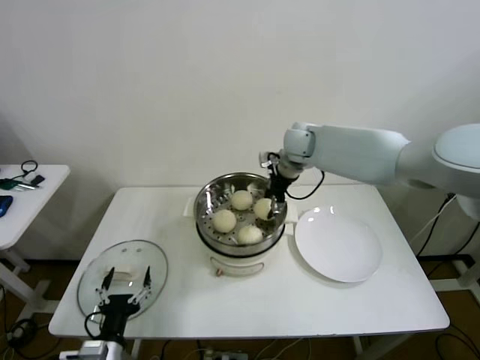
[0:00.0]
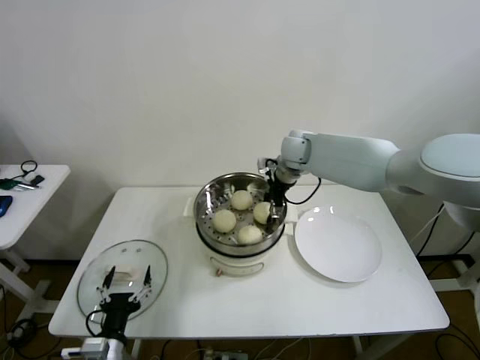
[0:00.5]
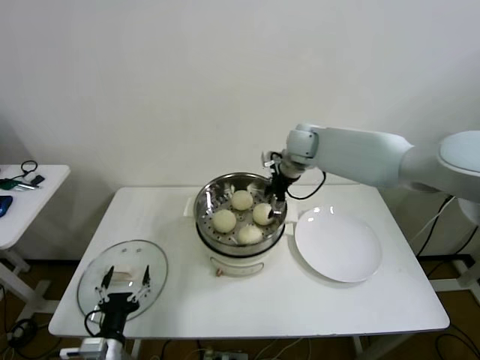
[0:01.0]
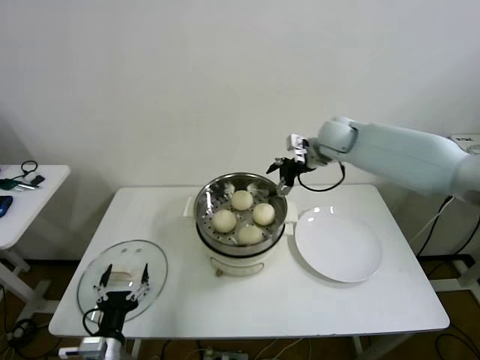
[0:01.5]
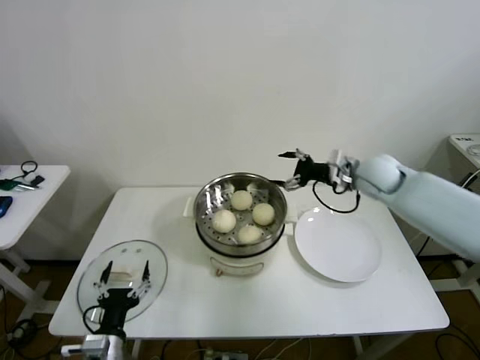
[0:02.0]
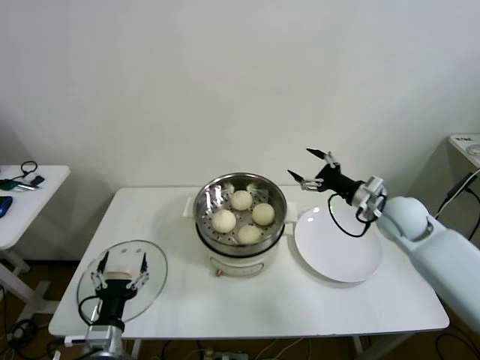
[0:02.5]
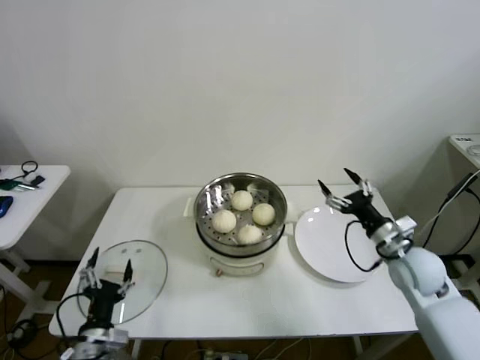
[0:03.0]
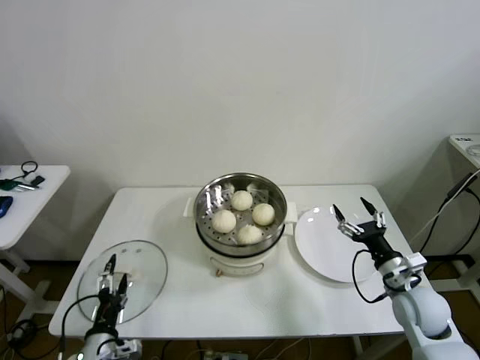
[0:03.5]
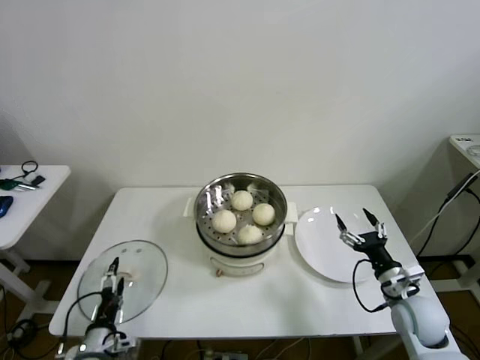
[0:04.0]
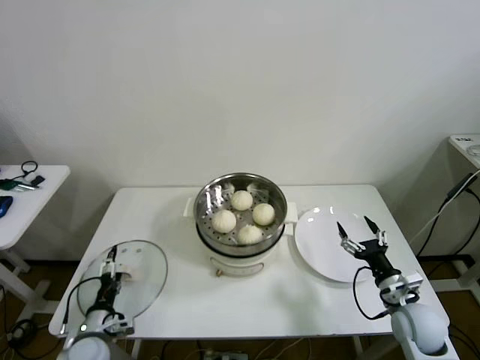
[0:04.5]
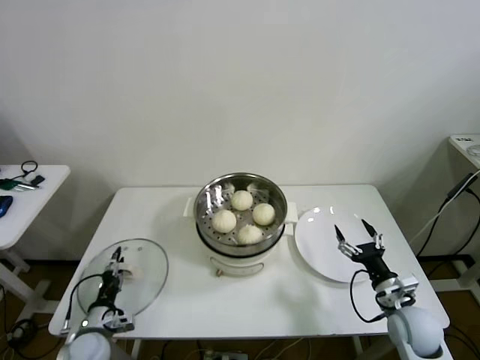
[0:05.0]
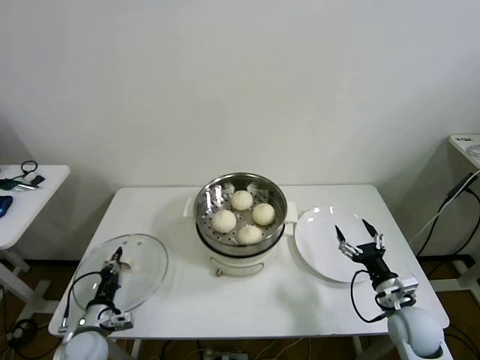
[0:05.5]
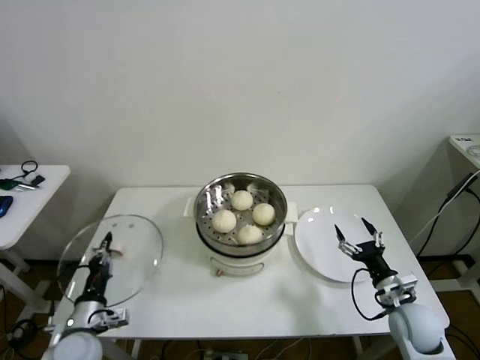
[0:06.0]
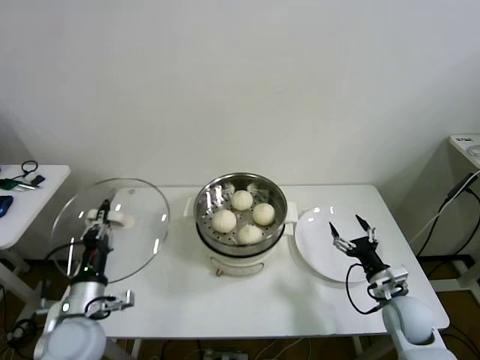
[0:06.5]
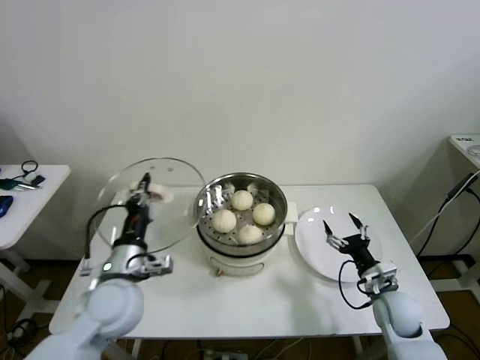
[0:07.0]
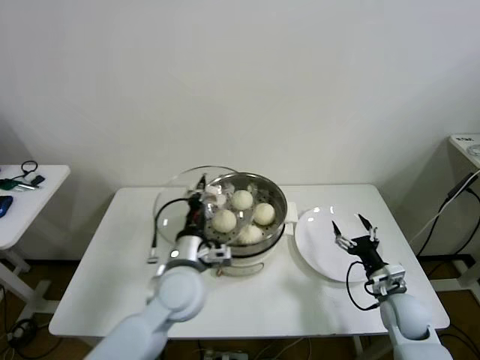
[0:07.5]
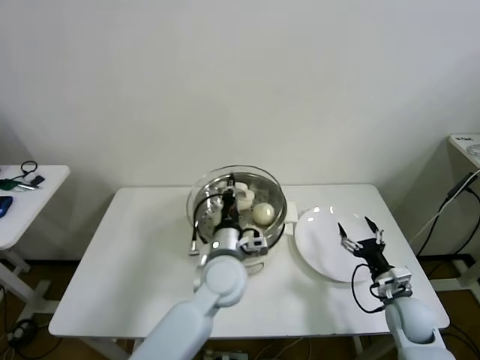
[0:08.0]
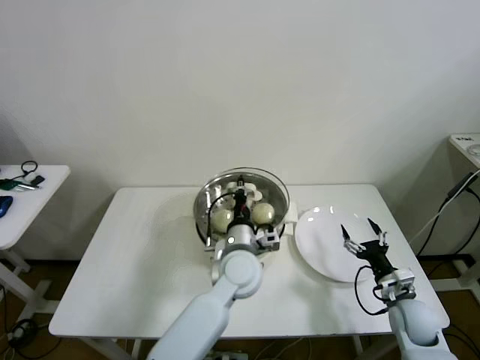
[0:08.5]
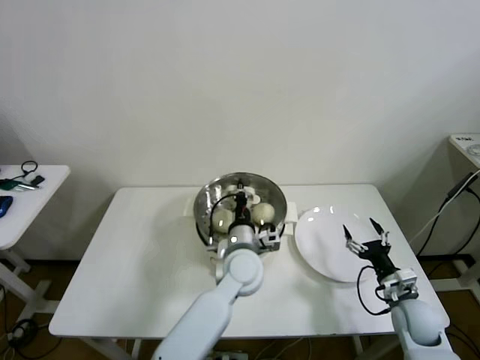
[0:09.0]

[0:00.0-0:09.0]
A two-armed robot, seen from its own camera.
Step, 0:01.0 to 0:05.0: Grasp the pot lid with left gripper.
0:00.0 to 0:02.0: The right gripper travels to the right and backward by roughly 20 cm, and opens.
0:02.0 to 0:04.5: The left gripper shifts about 15 cm to the left, forward and downward. The right gripper shifts roughly 30 cm backward and downward.
0:04.5 to 0:07.0: The left gripper moves upward and to the right, about 25 cm, and closes up.
0:07.0 to 0:09.0: The left gripper goes about 25 cm to the right and forward.

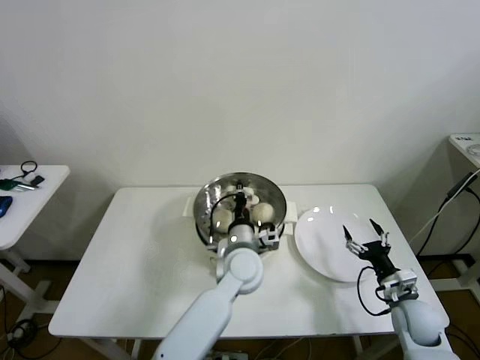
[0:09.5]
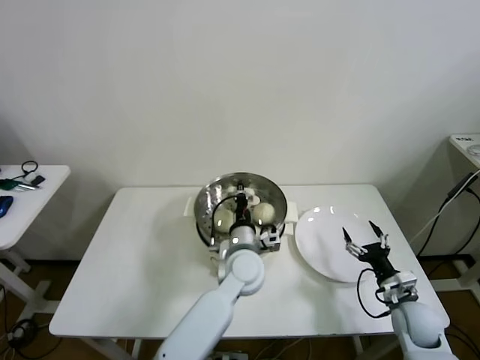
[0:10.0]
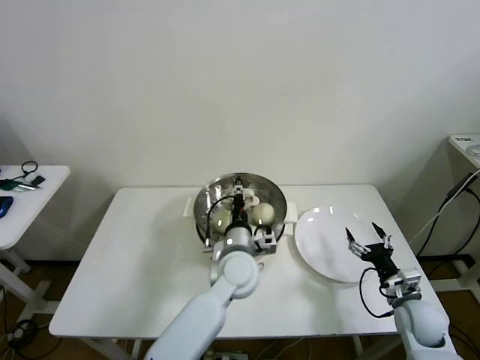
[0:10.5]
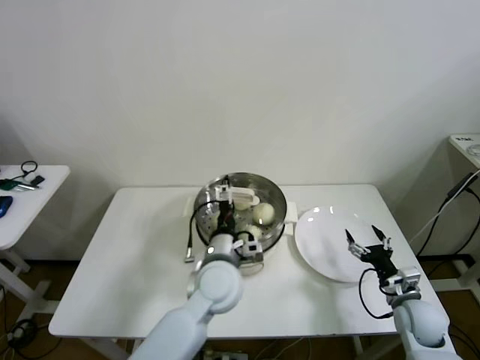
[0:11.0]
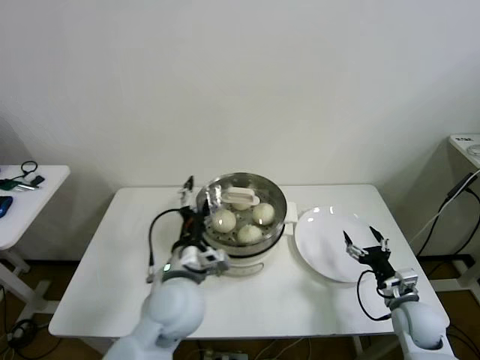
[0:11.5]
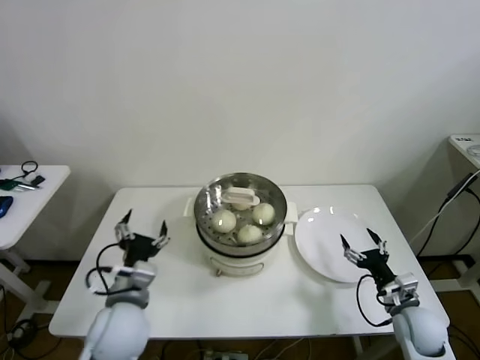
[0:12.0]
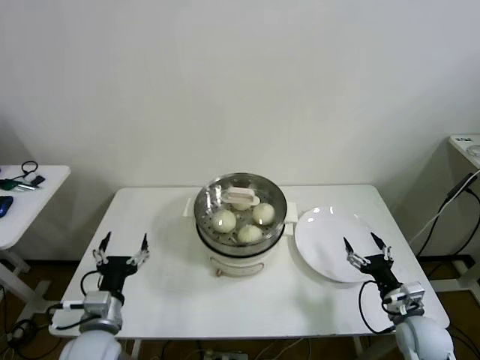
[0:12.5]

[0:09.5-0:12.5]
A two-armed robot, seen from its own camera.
0:09.5 to 0:11.0: The left gripper ends up roughly 5 cm from where it was, and opens up.
0:11.0 to 0:12.5: The left gripper goes approximately 25 cm to the left and backward.

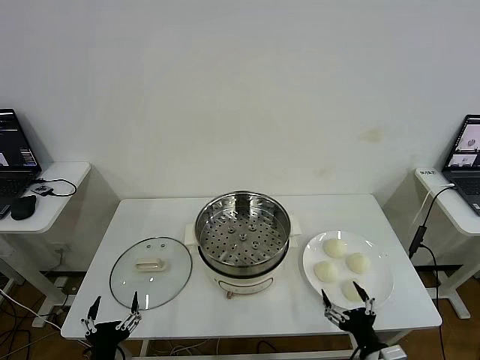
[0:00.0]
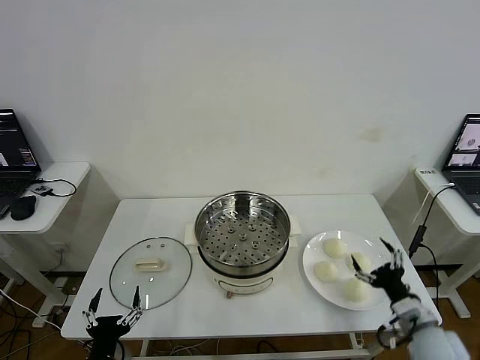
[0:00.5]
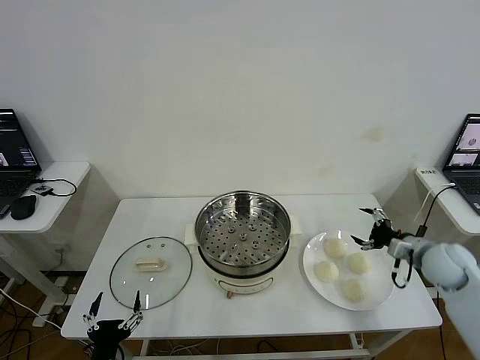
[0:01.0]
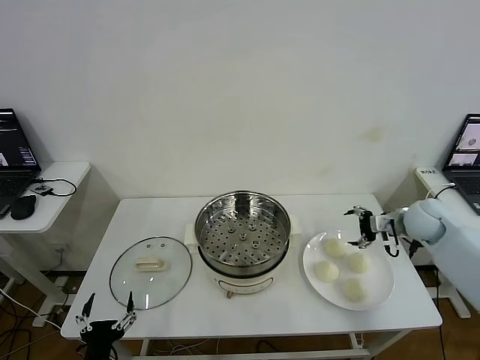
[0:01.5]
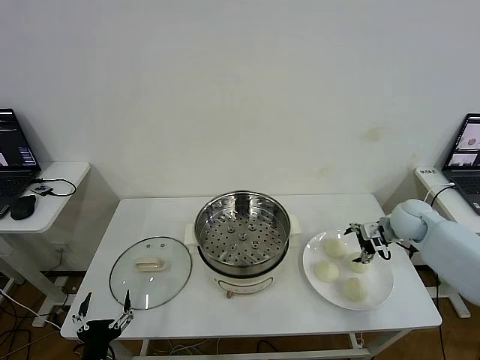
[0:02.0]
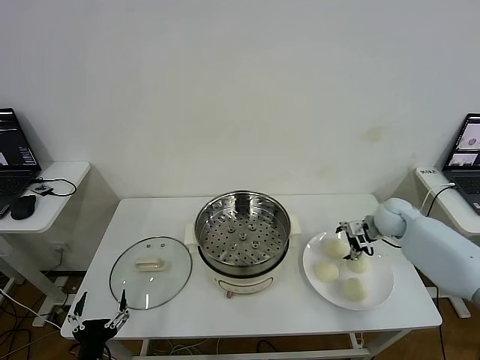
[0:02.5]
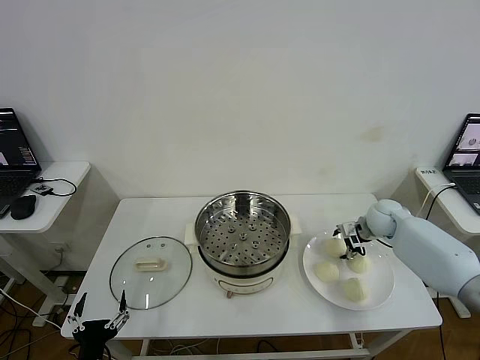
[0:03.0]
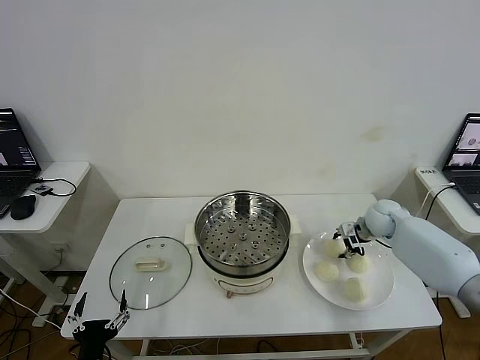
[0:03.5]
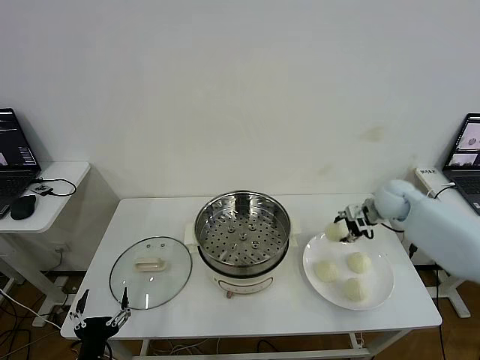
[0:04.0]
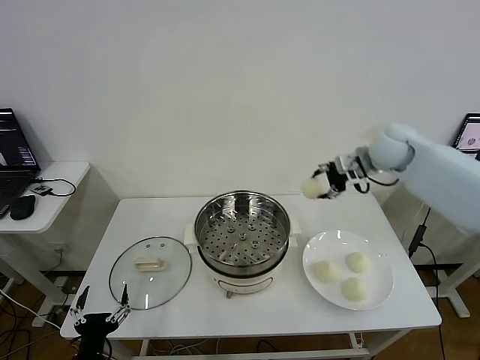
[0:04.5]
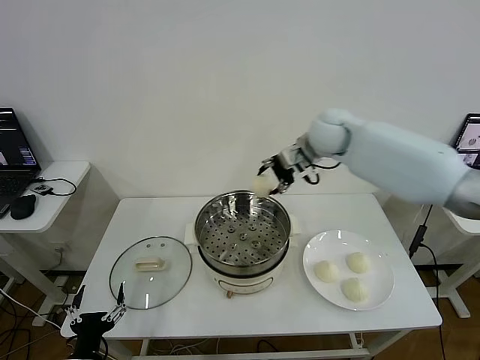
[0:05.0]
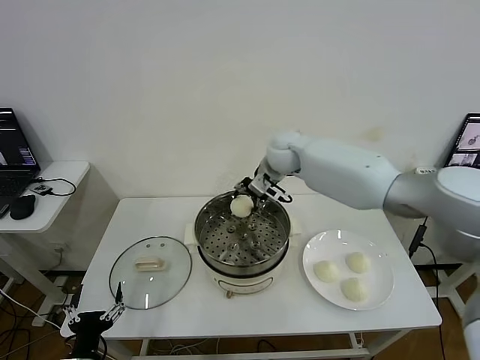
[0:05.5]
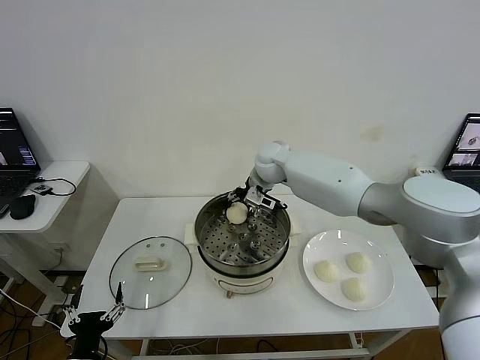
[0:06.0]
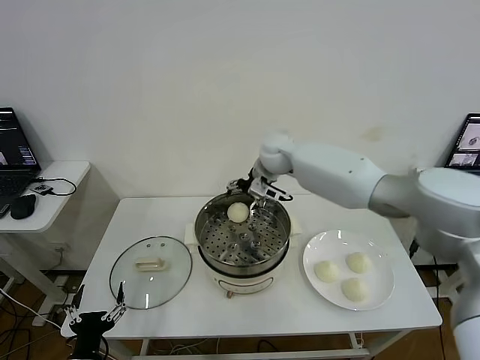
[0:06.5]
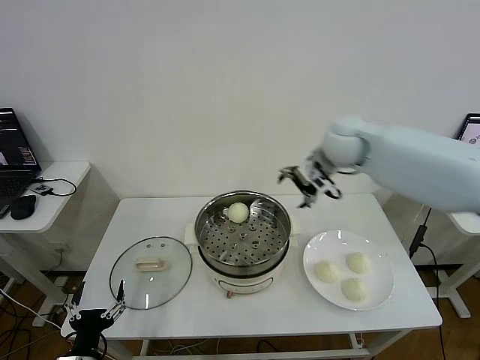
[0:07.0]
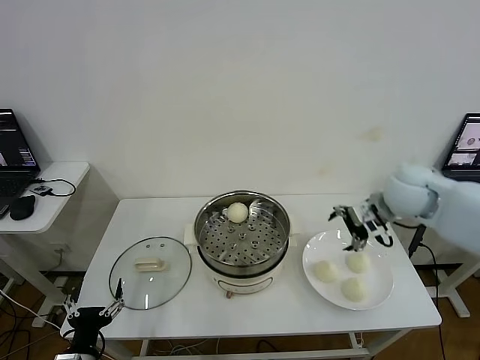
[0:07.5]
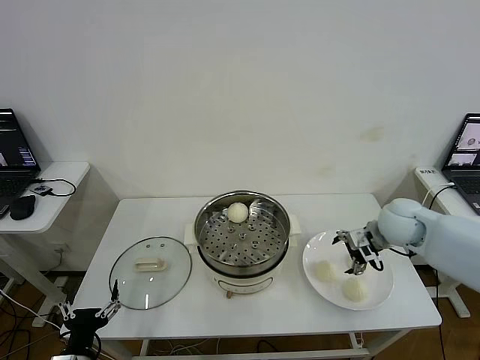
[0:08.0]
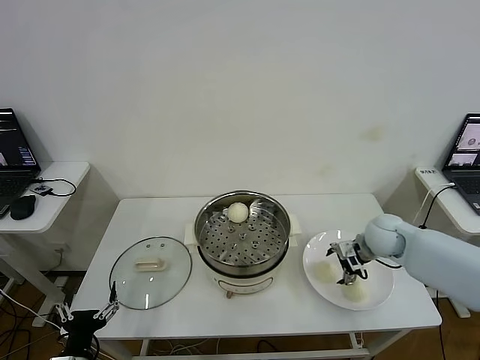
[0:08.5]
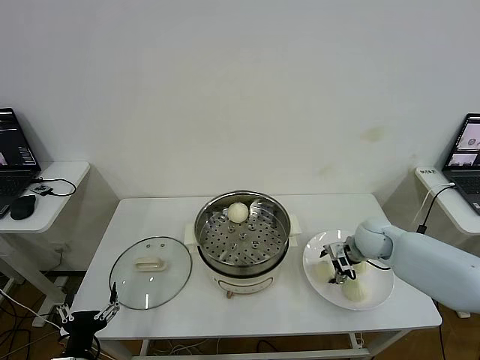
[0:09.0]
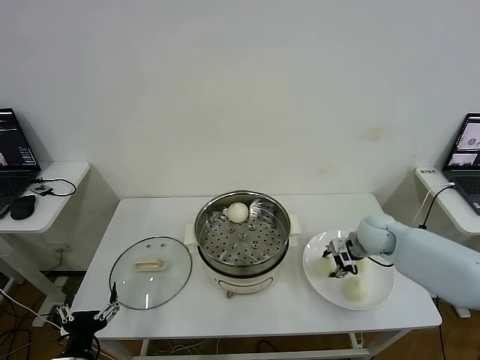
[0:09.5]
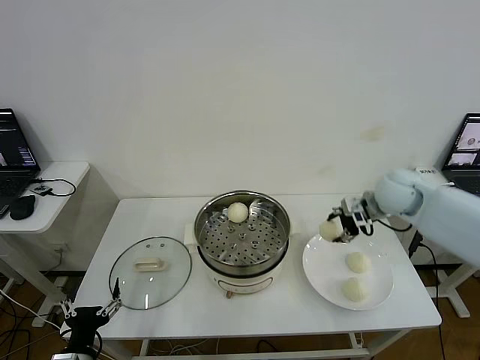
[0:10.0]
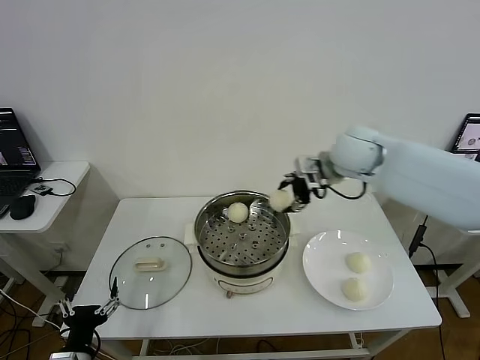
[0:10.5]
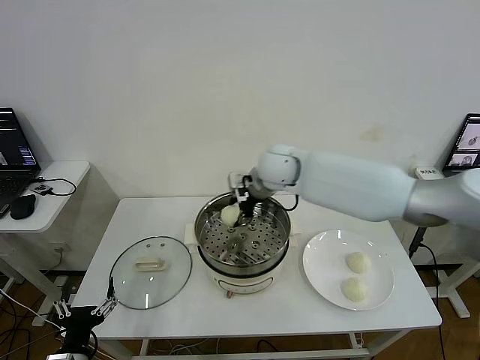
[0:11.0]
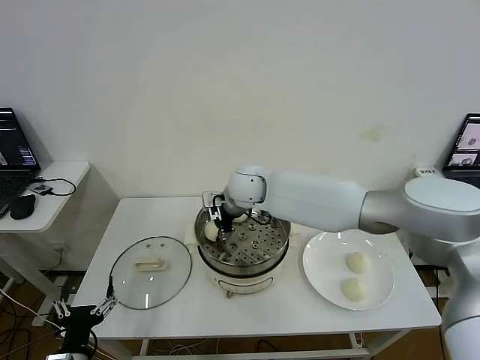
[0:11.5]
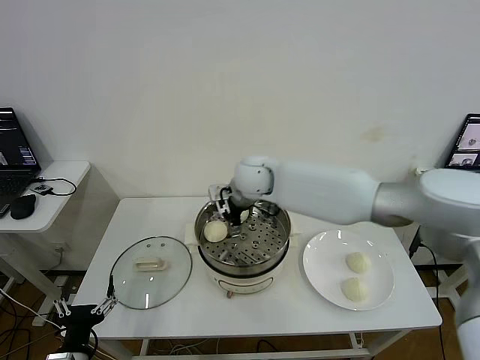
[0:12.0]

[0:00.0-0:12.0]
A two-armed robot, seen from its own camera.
Step, 0:00.0 to 0:03.0: Grasp the baozi in the plate with right gripper.
Step, 0:03.5 to 0:06.0: Place the baozi on the steamer with right gripper.
Step, 0:06.5 to 0:09.0: Grasp the baozi in the plate with right gripper.
Step, 0:09.5 to 0:11.5: Place the baozi on the steamer with right gripper.
0:02.0 to 0:04.0: The right gripper heads upward, covering roughly 10 cm, and closes up.
0:04.0 to 0:06.0: The right gripper is displaced to the left by approximately 30 cm.
0:06.0 to 0:08.0: The right gripper shifts roughly 30 cm to the right and backward, and opens up.
0:08.0 to 0:10.0: The right gripper goes approximately 10 cm upward, and closes its fingers.
0:10.0 to 0:12.0: The right gripper moves to the left, roughly 30 cm, and opens its fingers.

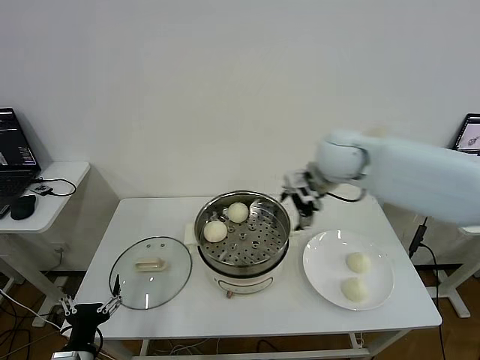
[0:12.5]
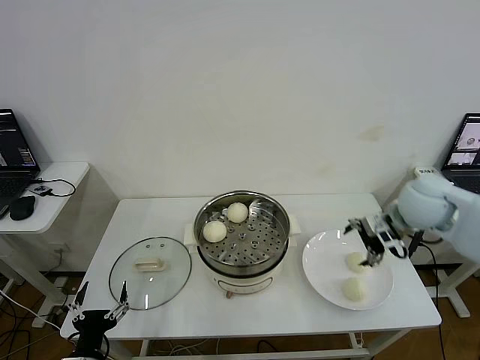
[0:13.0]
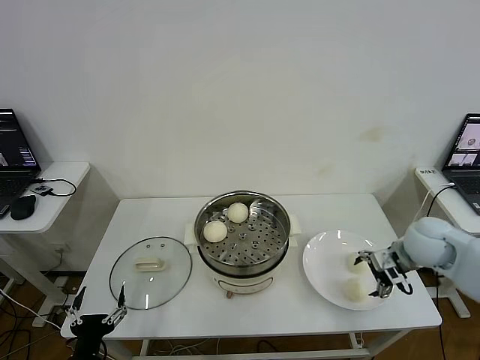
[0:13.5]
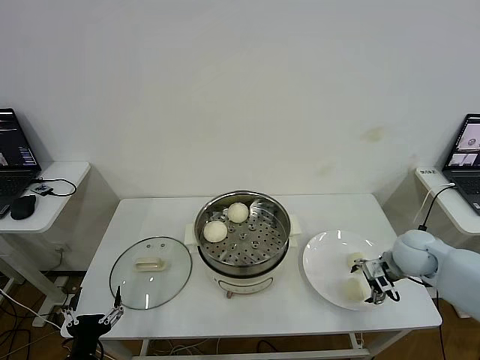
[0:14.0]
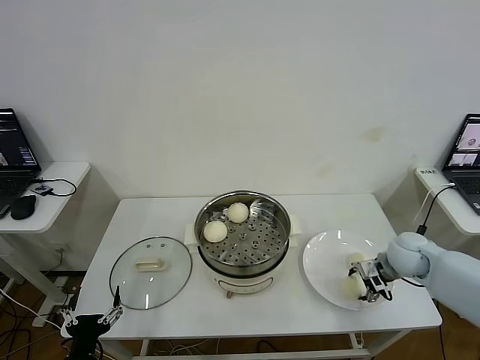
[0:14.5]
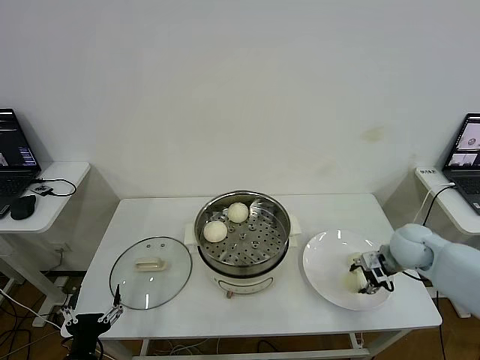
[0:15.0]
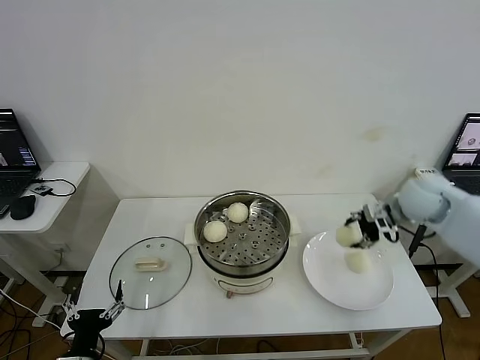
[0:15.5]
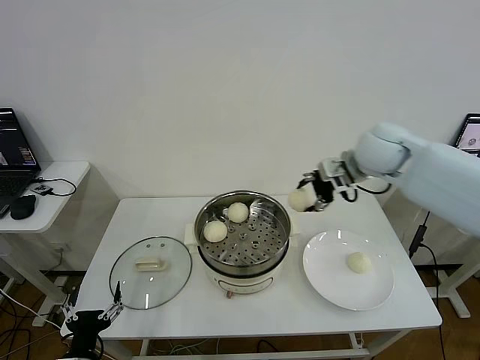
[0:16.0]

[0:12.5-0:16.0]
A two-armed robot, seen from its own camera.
Step, 0:12.5 to 0:14.5: Grasp the baozi in the plate with right gripper.
0:12.5 to 0:14.5: The right gripper moves downward and to the right, approximately 25 cm, and closes.
0:14.5 to 0:16.0: The right gripper travels upward and to the left by about 25 cm.
